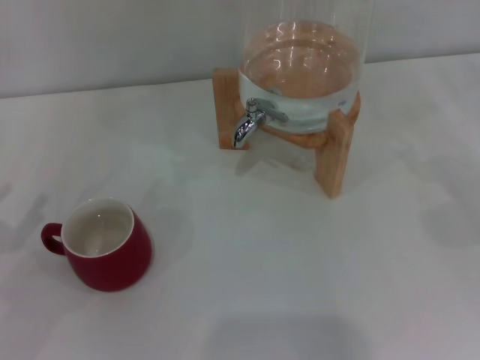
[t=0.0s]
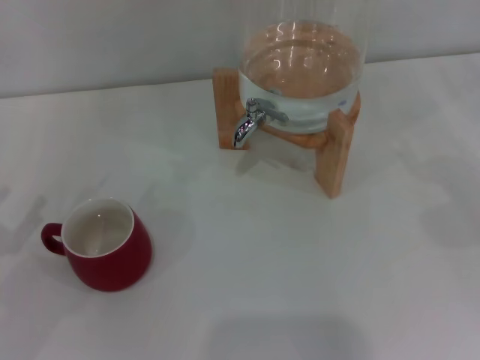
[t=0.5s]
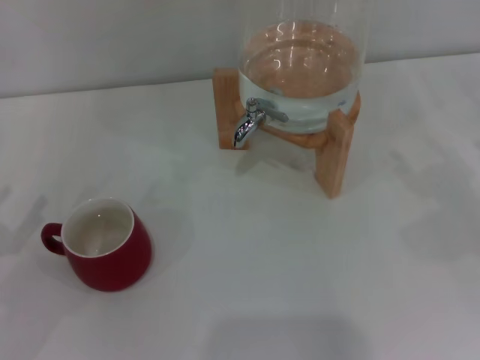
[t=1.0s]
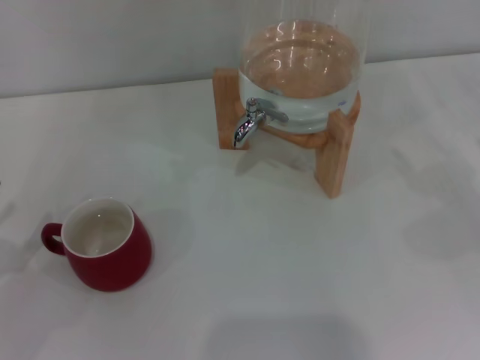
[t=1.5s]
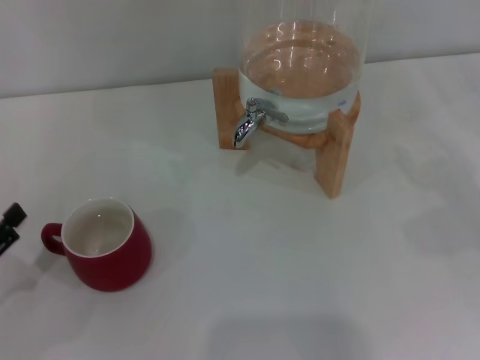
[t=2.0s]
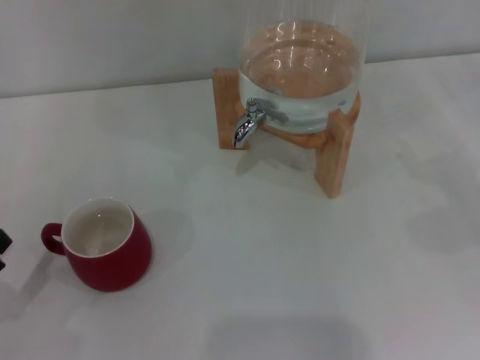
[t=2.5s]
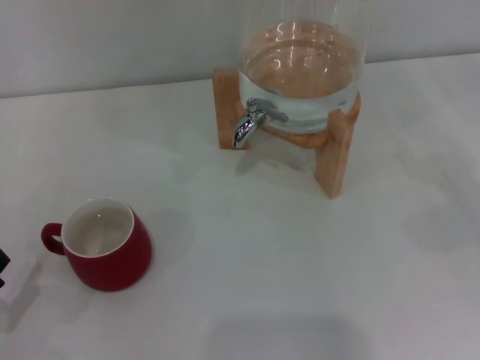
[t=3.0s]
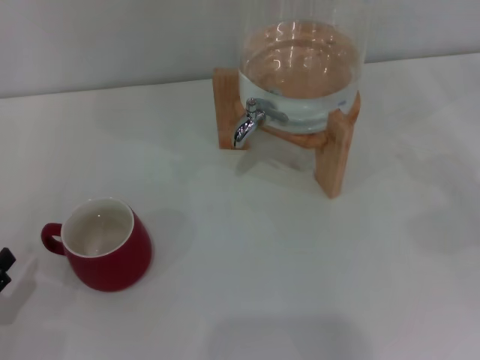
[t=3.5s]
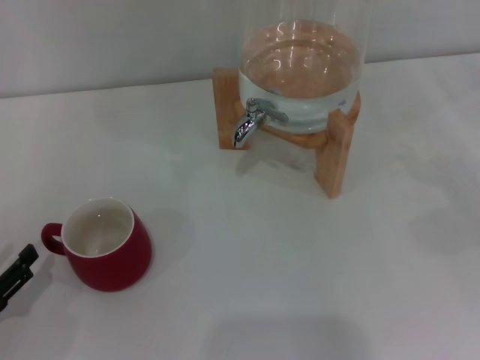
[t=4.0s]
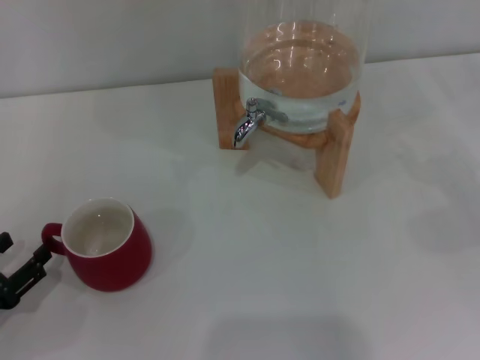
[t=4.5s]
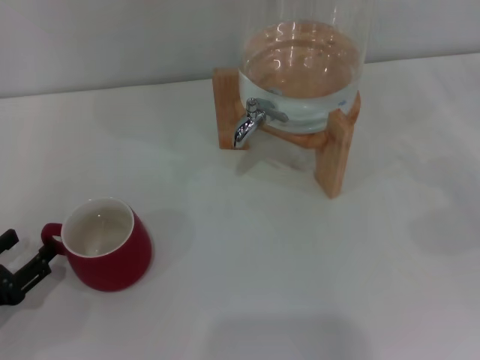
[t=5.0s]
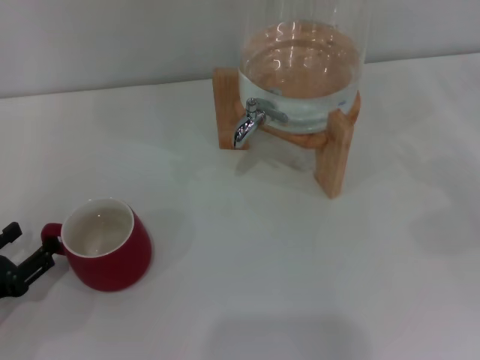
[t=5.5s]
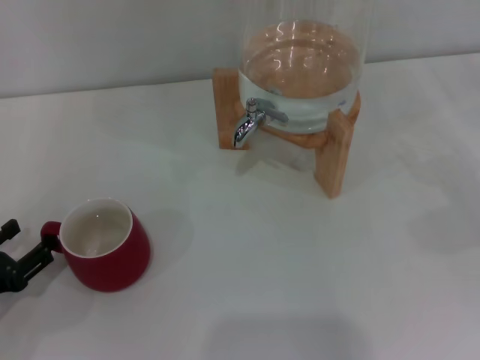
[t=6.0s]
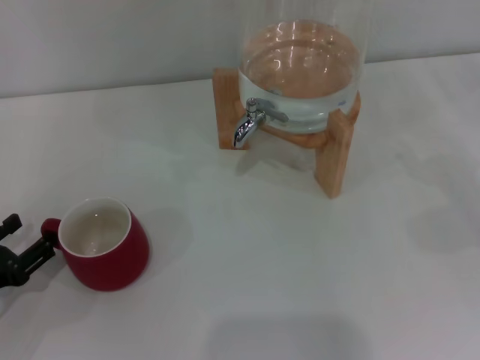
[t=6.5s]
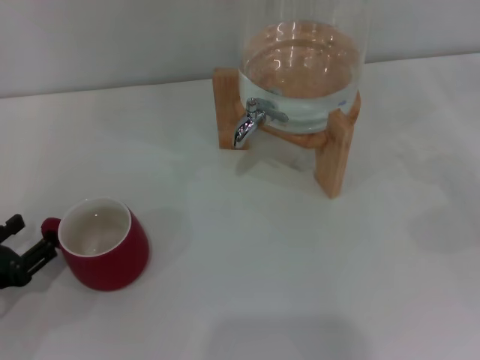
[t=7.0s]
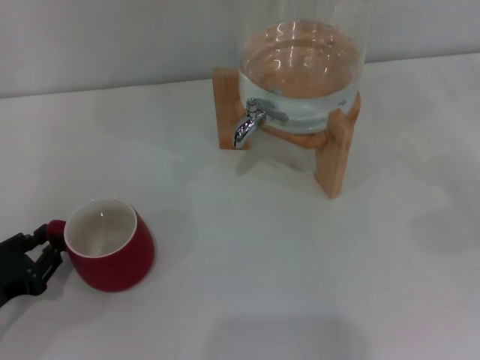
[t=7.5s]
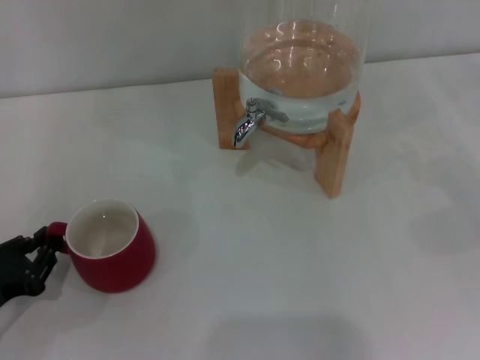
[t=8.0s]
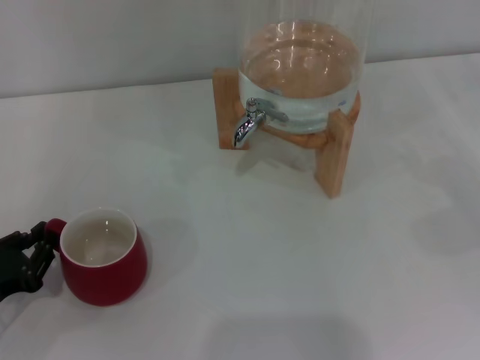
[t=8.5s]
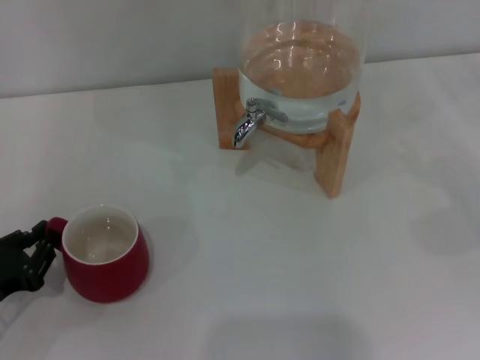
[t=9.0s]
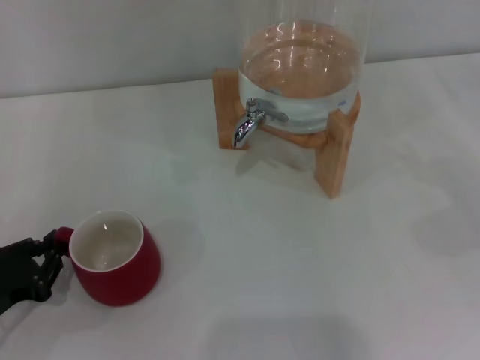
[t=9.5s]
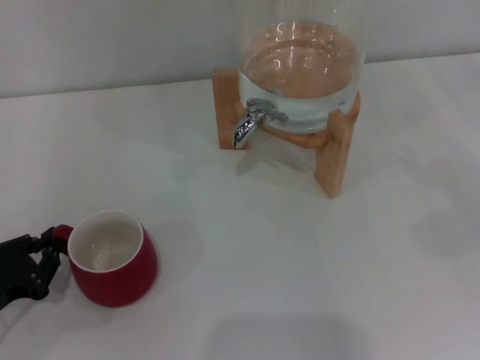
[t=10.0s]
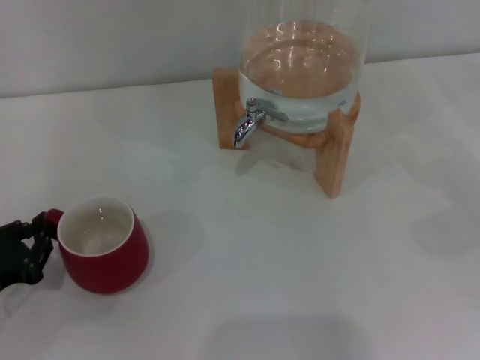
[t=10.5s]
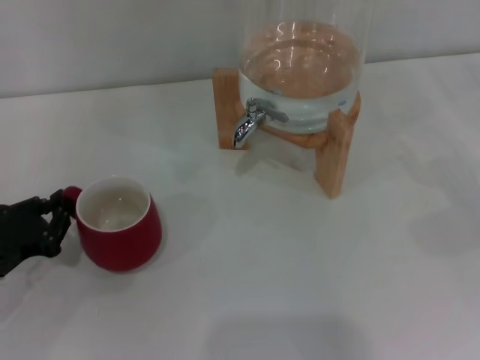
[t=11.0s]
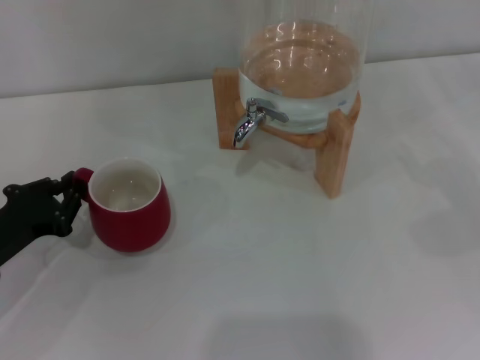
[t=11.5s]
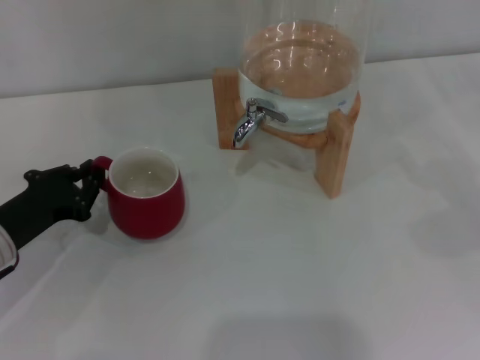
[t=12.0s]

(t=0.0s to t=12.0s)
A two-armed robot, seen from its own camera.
Task of the whole recording: the left gripper pick up the red cup and place it horizontally under the faucet, the right gripper turn on the faucet to fill the cup, and then turn off the faucet.
t=0.0s - t=2.0s: The left gripper ends up approximately 5 cm from where it was.
t=2.0s - t=6.0s: The grippers make only small movements.
t=6.0s - t=8.0s: The left gripper closes.
t=8.0s - t=10.0s: There are only small adjustments of the grippers.
t=10.0s - t=12.0s: The left gripper moves forward, approximately 5 cm.

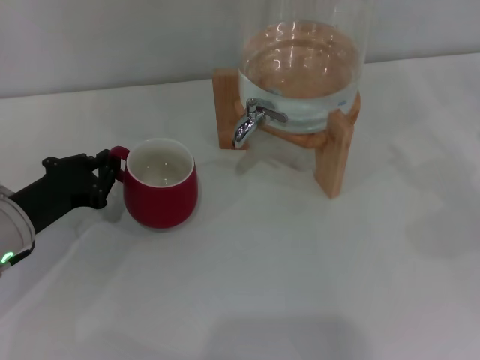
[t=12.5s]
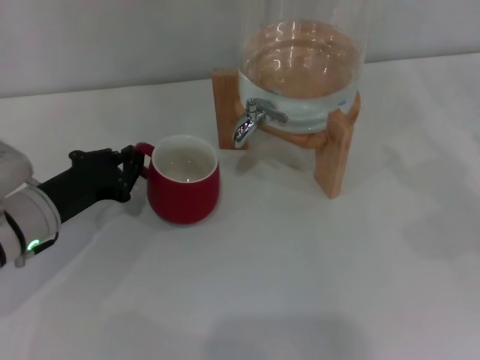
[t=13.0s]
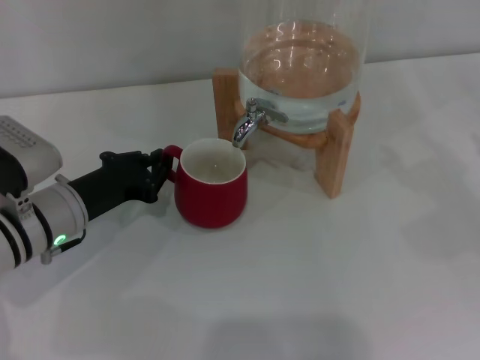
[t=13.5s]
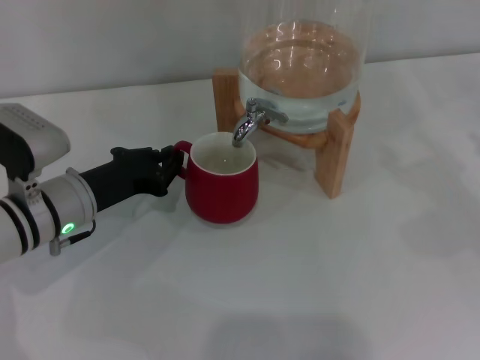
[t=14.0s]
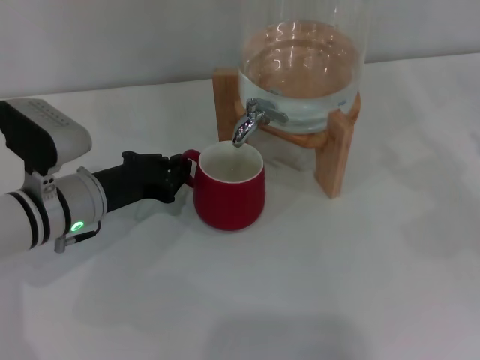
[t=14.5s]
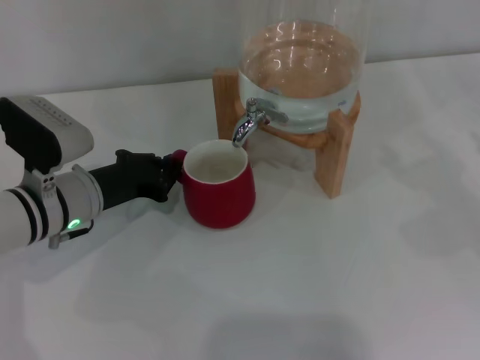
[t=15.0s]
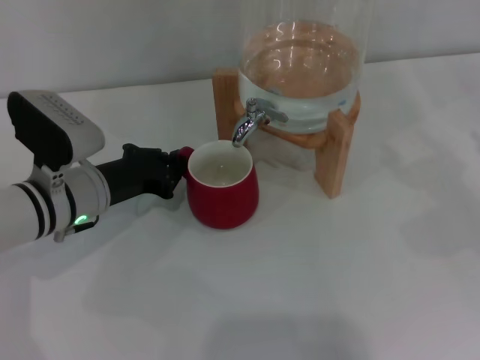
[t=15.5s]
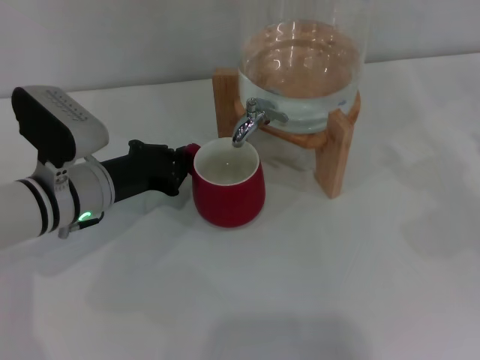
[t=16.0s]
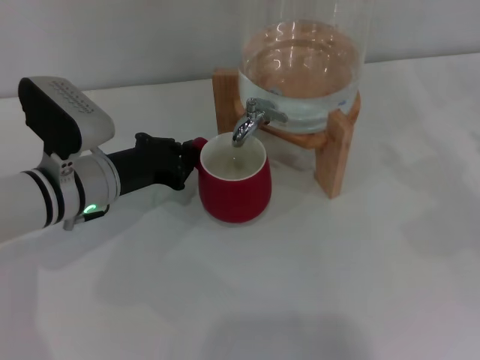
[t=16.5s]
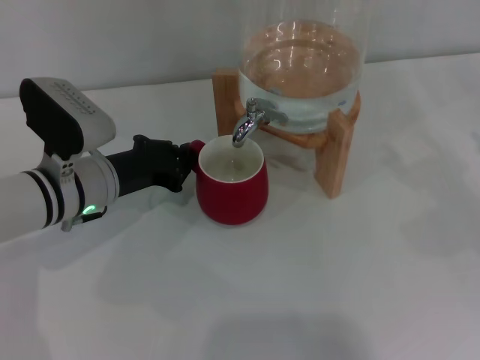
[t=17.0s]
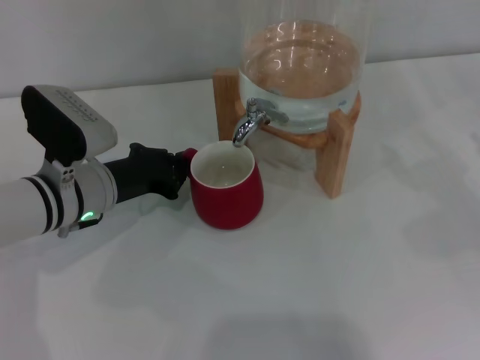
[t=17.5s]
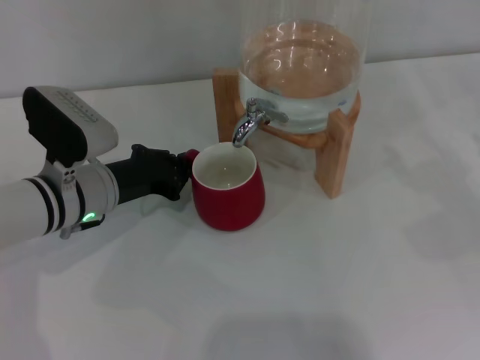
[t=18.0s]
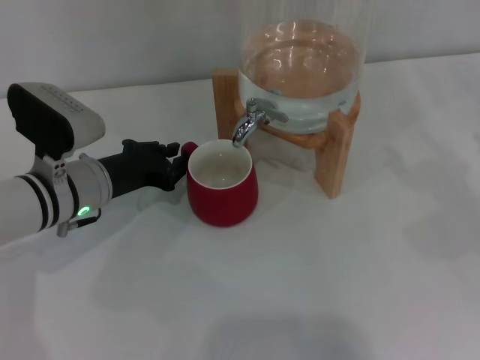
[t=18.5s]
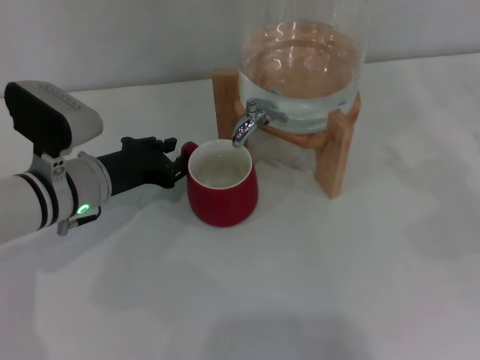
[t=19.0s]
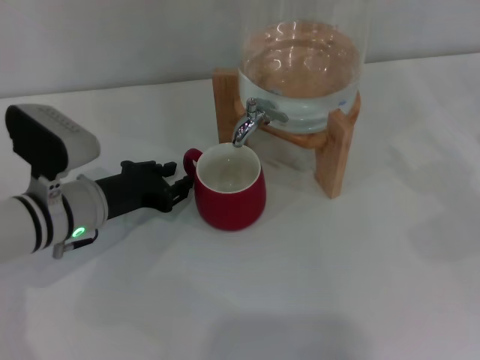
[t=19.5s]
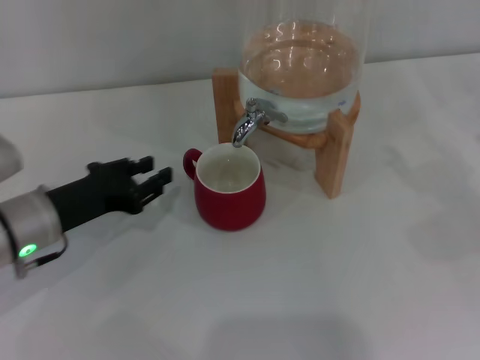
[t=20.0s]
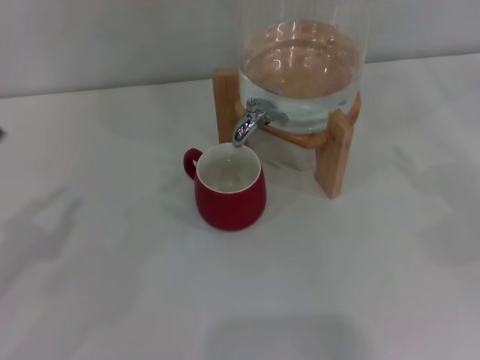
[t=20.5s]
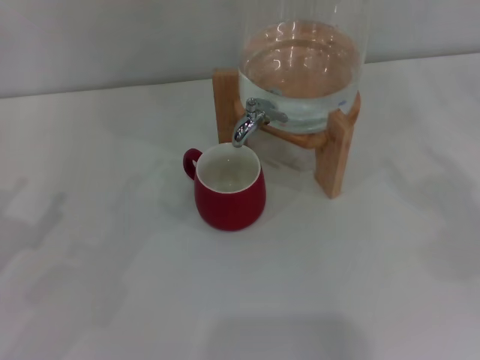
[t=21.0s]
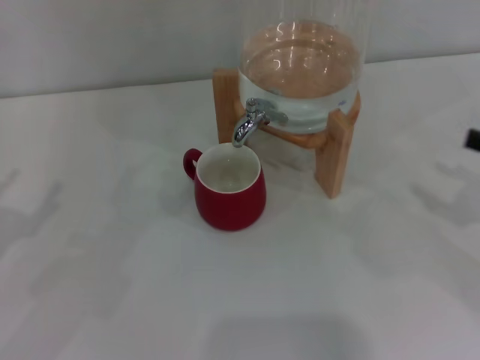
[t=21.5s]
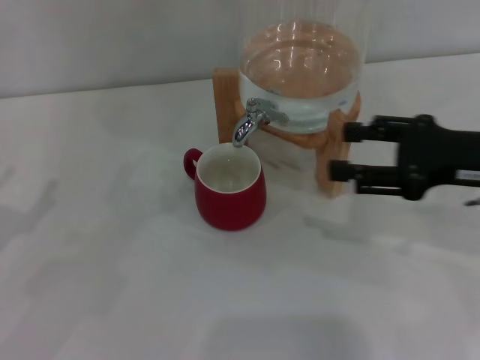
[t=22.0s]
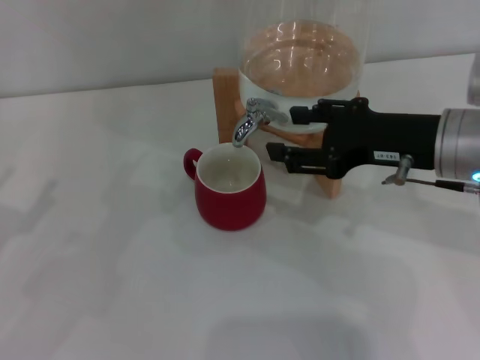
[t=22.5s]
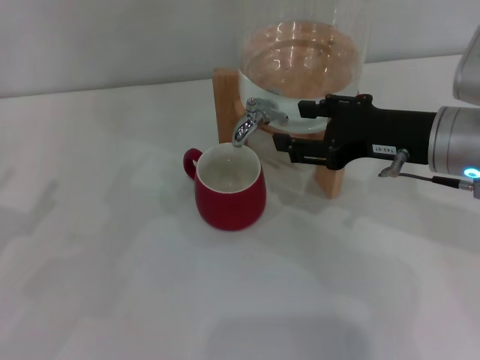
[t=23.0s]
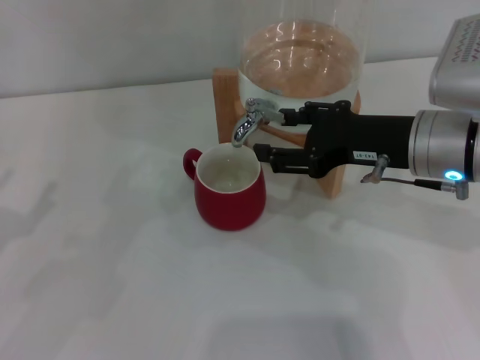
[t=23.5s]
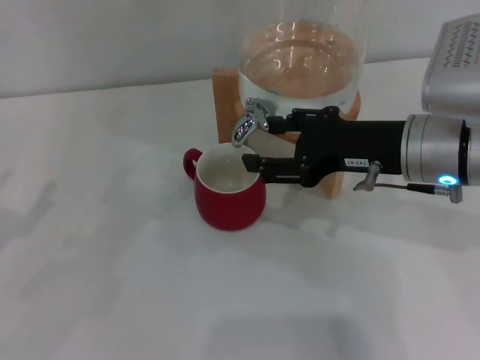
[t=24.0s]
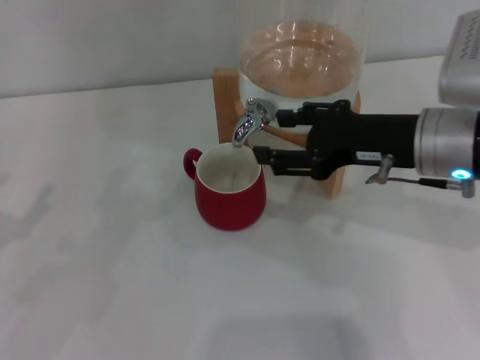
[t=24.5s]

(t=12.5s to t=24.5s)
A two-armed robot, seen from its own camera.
Task of the whole recording: the left gripper pick up the red cup and place it horizontally under the faucet, the right gripper turn on the faucet to fill the cup, and then turn off the faucet.
Step, t=12.5s - t=19.5s: Move the cup beneath the water dispenser nozzle with the left gripper.
Step, t=20.0s - t=24.5s: Open the dispenser valve and fill the cup with water with the right gripper.
t=12.5s - t=14.5s: The left gripper is displaced to the right by about 5 cm.
t=14.5s - t=18.5s: The grippers move only a little.
t=18.5s - t=20.5s: The left gripper moves to the left and backward, some 20 cm.
t=20.5s - t=22.5s: The right gripper shifts approximately 25 cm to the left. Meanwhile the left gripper opens up.
t=22.5s - t=24.5s: The grippers stay close to where they were, moving slightly.

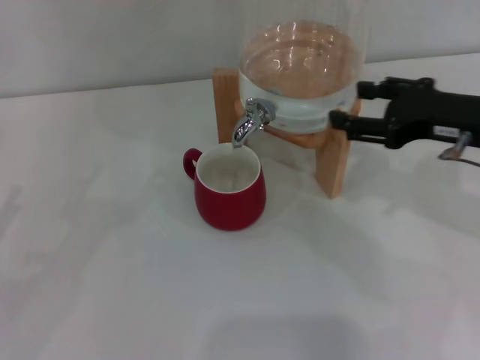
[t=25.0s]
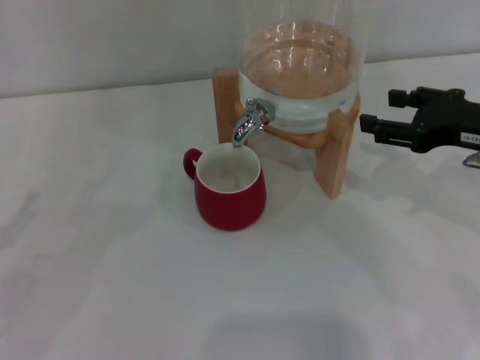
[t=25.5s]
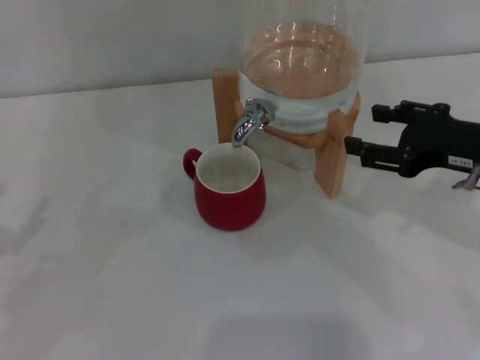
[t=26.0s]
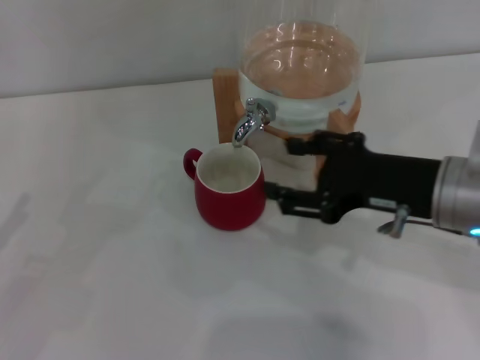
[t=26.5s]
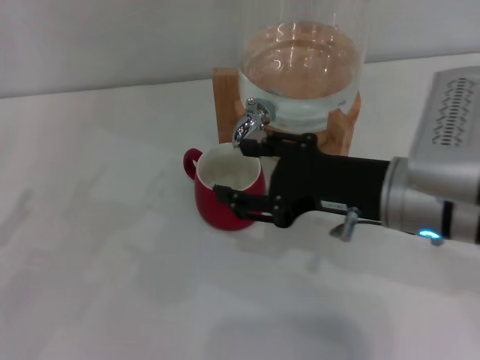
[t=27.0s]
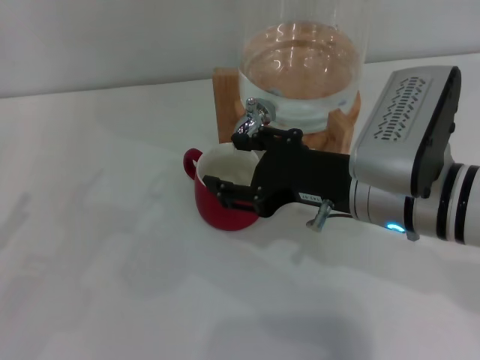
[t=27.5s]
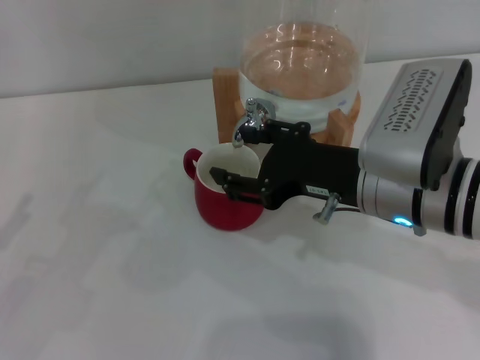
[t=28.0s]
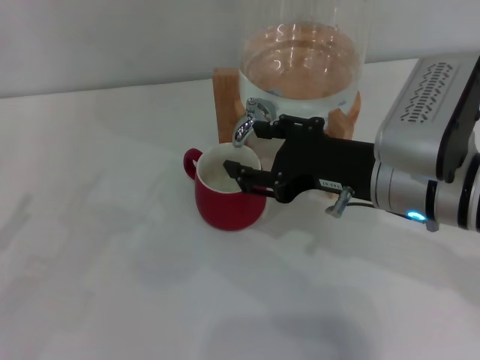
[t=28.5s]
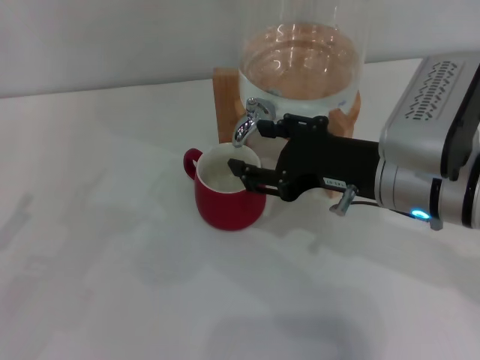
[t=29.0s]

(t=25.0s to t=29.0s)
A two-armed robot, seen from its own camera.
Task of the whole recording: the left gripper pick up the red cup and place it horizontally under the faucet, the right gripper turn on the faucet to fill the cup, and then turn off the faucet.
t=25.0s - t=27.0s: The right gripper goes some 10 cm to the left.
t=27.0s - t=29.0s: The grippers move only a little.
